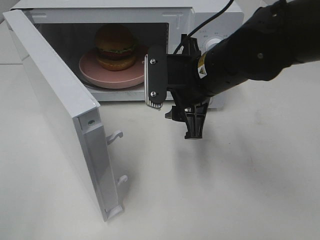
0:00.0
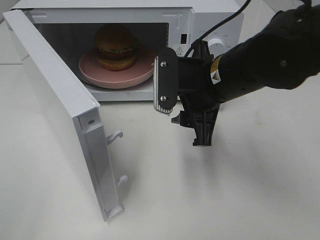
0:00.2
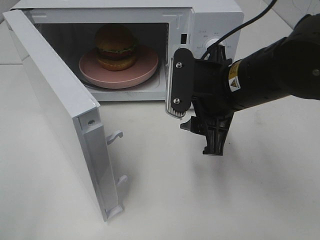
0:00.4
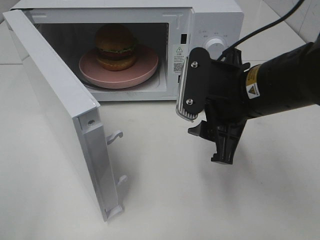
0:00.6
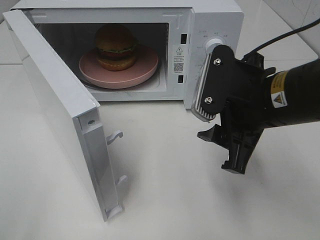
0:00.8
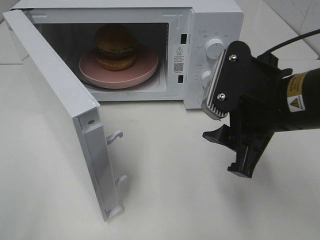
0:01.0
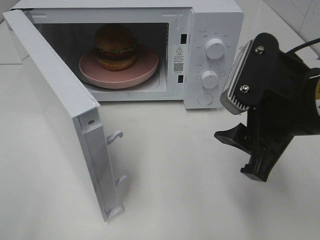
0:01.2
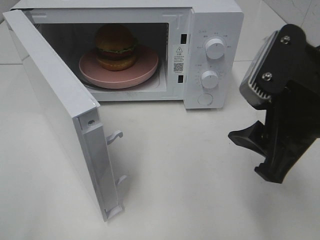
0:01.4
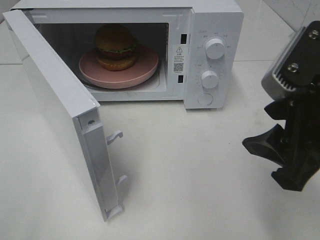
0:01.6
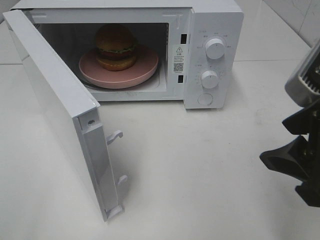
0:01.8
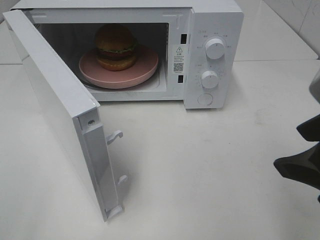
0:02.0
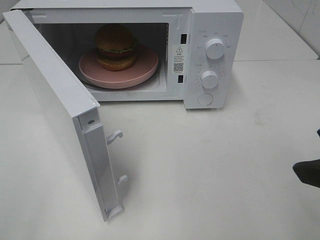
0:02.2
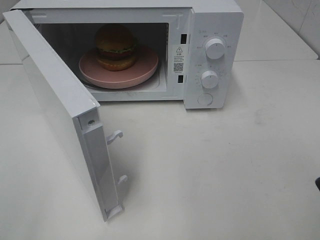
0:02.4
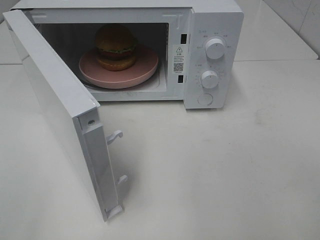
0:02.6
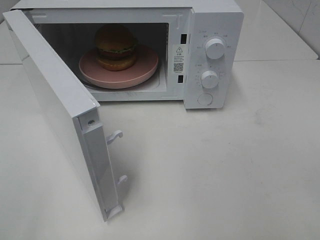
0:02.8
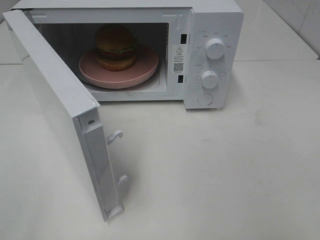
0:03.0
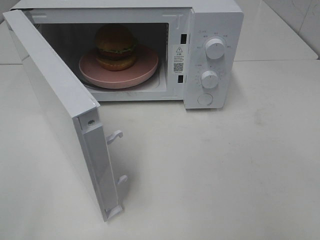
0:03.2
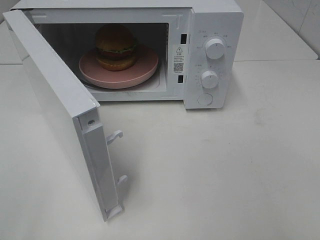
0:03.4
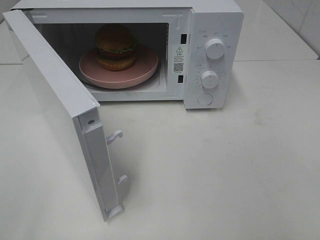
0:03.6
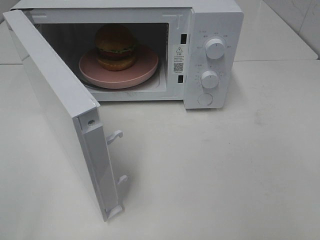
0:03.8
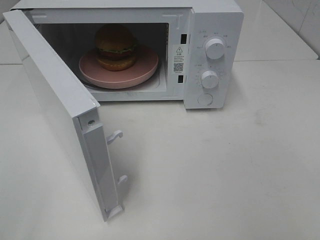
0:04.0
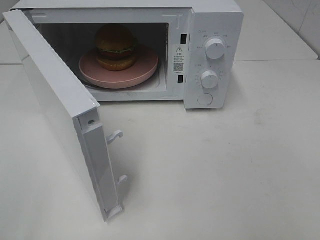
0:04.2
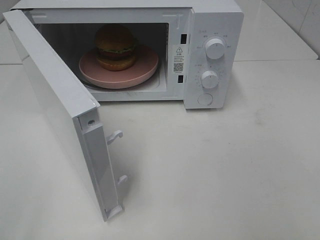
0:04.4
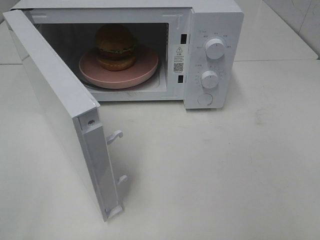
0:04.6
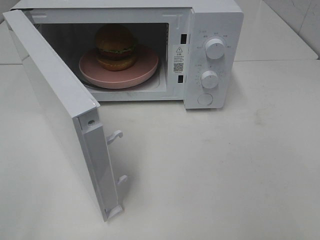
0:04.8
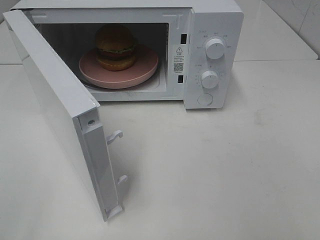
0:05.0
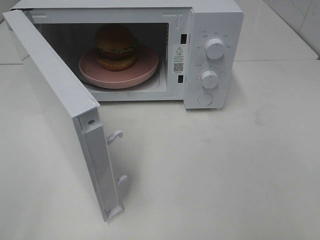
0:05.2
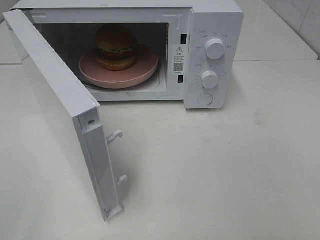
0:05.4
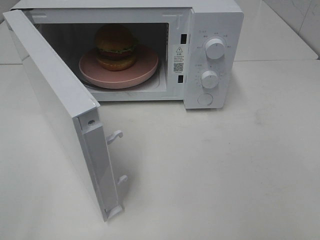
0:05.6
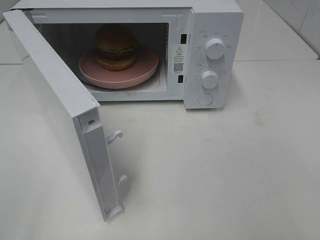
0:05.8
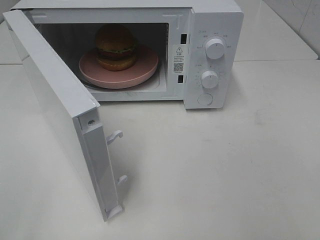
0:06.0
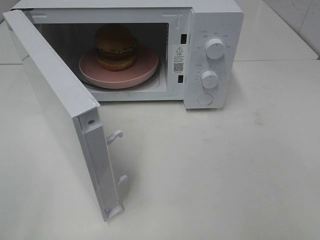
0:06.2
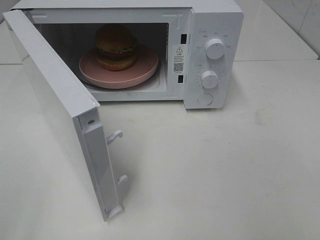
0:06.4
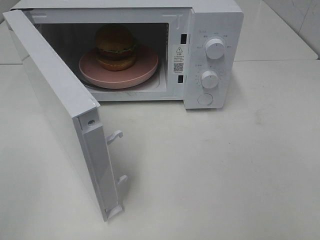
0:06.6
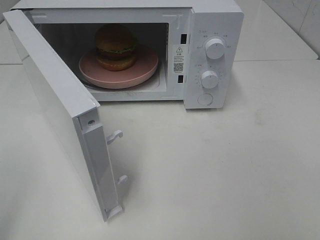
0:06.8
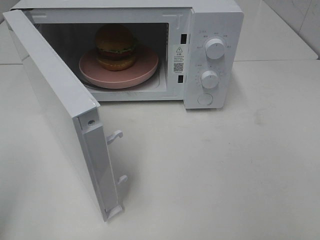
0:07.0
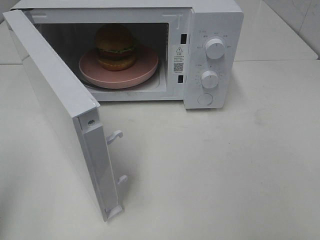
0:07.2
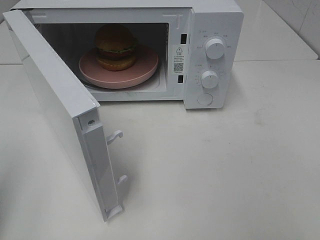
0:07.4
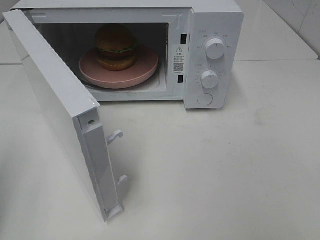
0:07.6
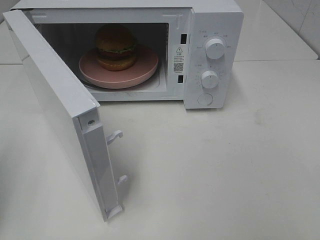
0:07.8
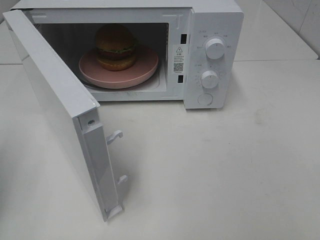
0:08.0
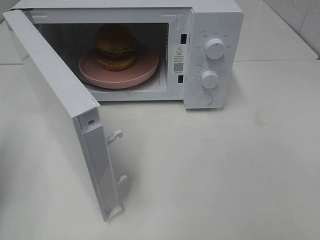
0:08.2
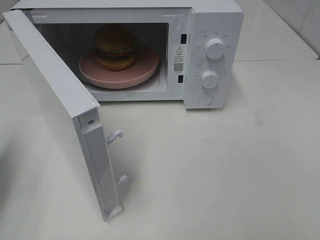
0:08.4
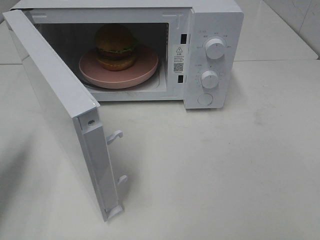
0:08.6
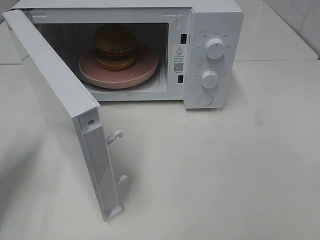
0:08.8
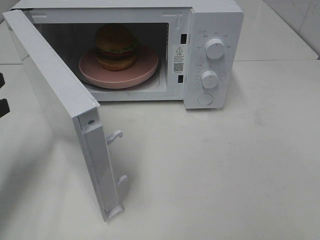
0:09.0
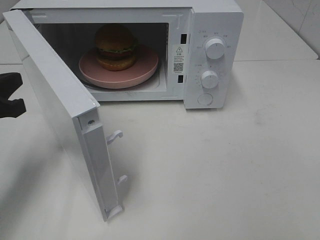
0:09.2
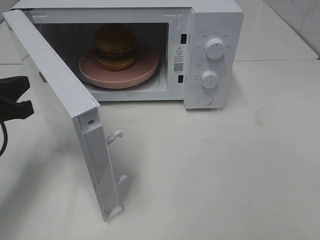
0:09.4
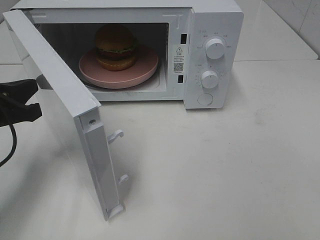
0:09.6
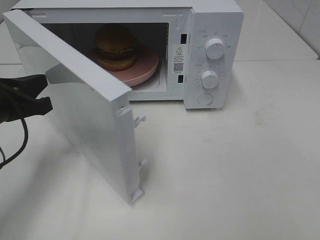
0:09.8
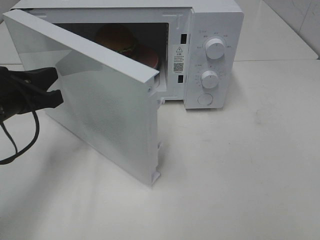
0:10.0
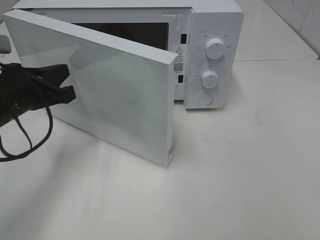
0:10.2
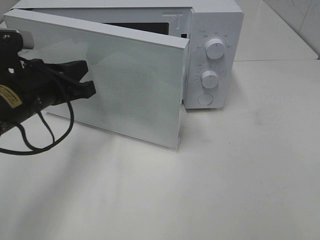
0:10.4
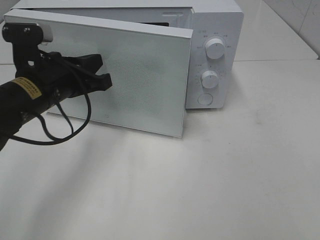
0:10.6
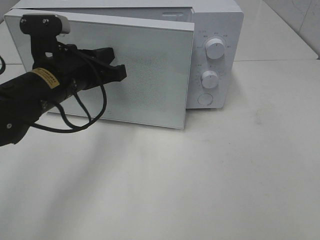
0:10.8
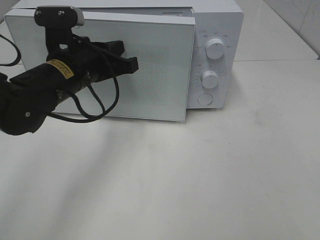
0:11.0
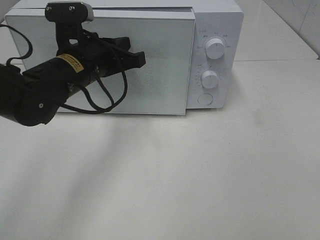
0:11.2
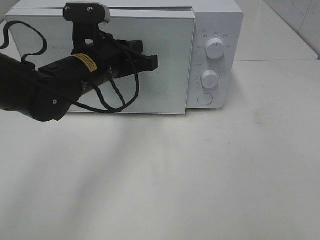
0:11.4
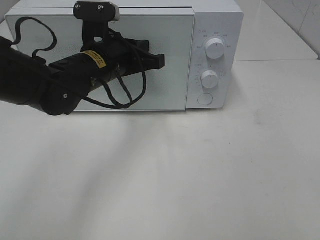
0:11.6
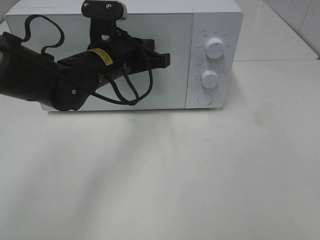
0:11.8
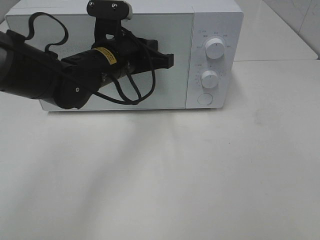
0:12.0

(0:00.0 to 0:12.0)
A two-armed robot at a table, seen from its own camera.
Task of the whole recording: Heat the burger.
0:00.0 - 0:01.6: The right gripper heads backward, to the right and upward, covering roughly 20 cm.
0:01.6 - 0:03.0: The right gripper shifts about 15 cm backward and to the right.
0:04.4 - 0:06.0: Both grippers stay put.
0:07.6 - 0:09.0: The left gripper moves forward and downward, roughly 10 cm.
0:09.0 - 0:10.4: The left gripper heads to the right, covering approximately 10 cm.
0:10.4 - 0:12.0: The left gripper shifts about 15 cm to the right and forward.

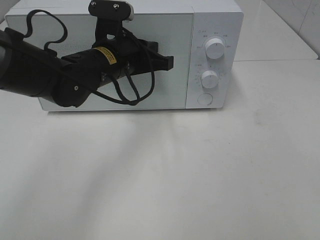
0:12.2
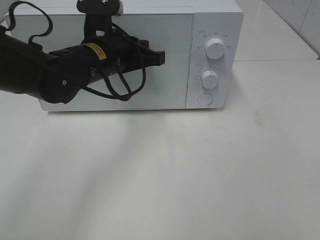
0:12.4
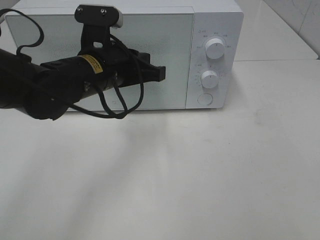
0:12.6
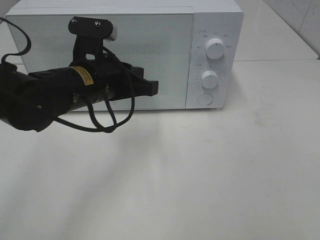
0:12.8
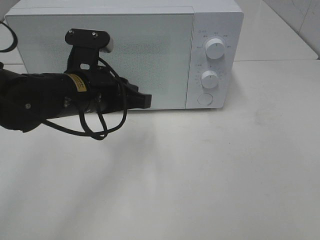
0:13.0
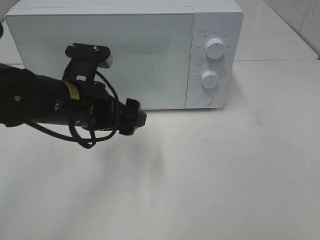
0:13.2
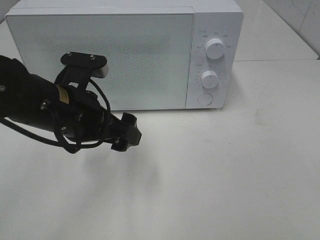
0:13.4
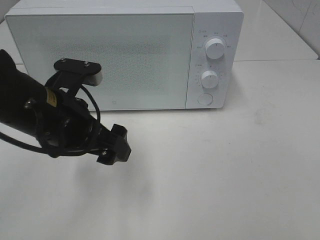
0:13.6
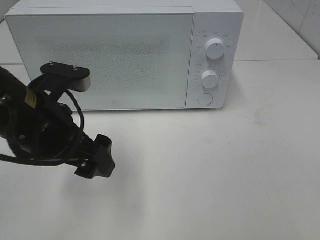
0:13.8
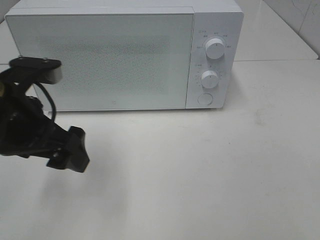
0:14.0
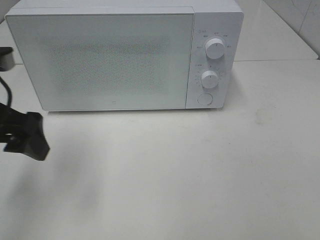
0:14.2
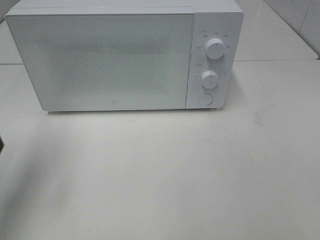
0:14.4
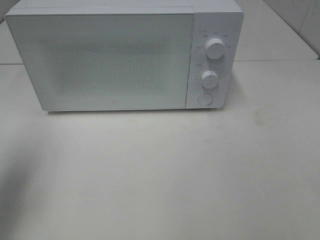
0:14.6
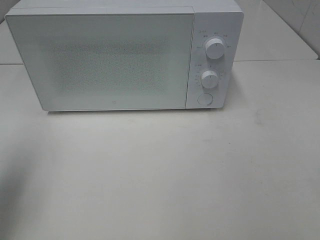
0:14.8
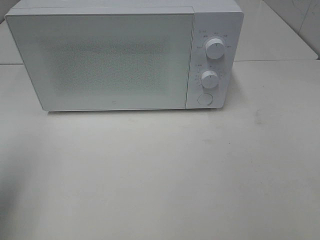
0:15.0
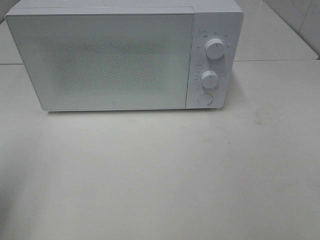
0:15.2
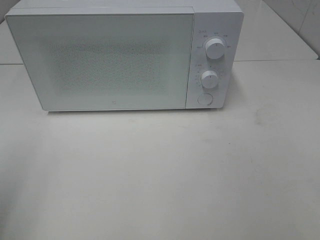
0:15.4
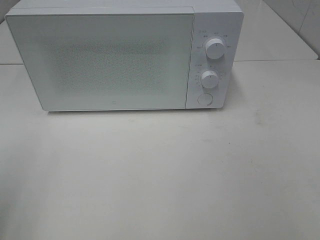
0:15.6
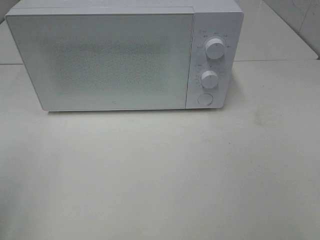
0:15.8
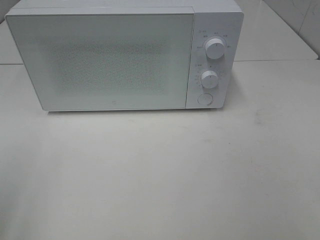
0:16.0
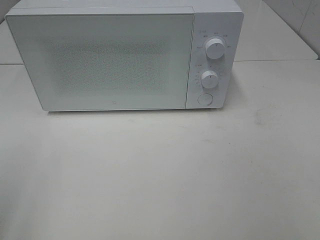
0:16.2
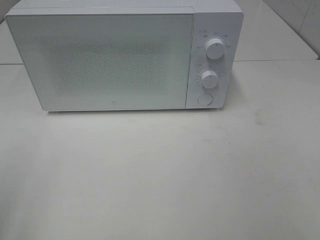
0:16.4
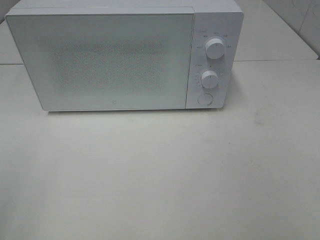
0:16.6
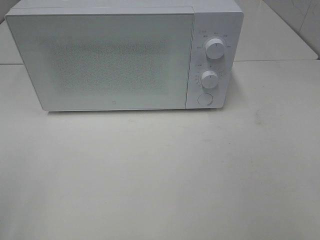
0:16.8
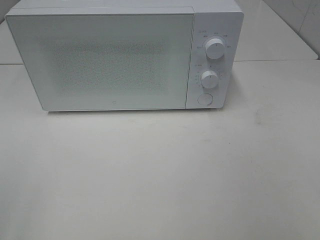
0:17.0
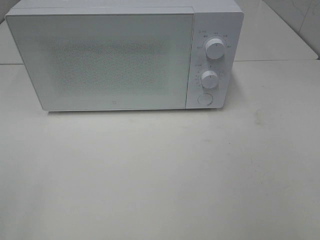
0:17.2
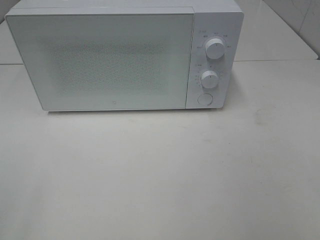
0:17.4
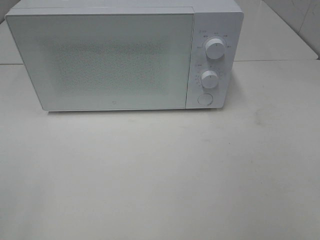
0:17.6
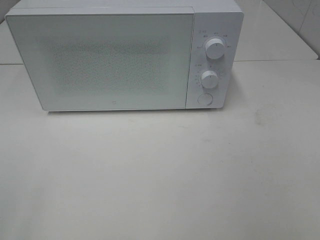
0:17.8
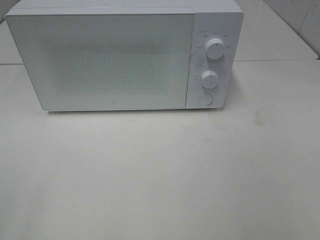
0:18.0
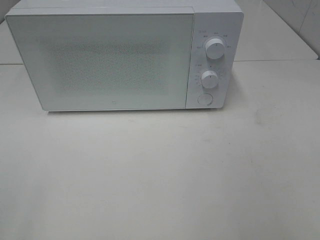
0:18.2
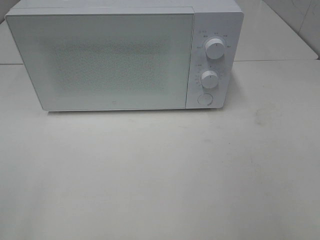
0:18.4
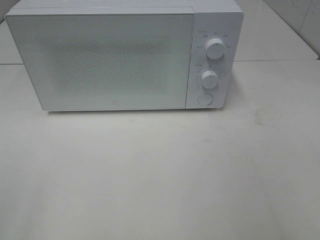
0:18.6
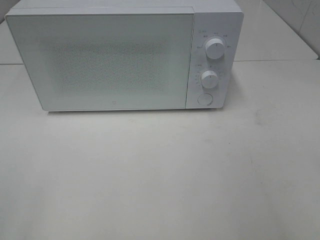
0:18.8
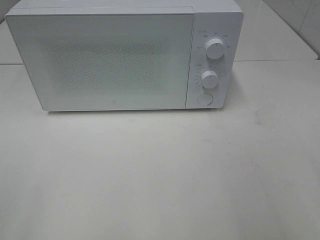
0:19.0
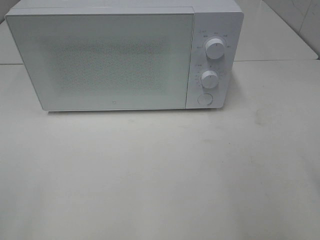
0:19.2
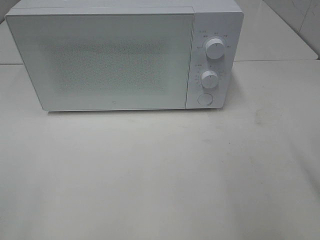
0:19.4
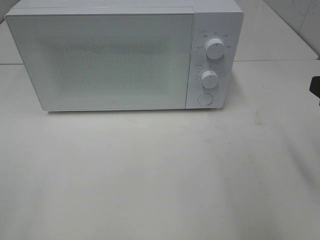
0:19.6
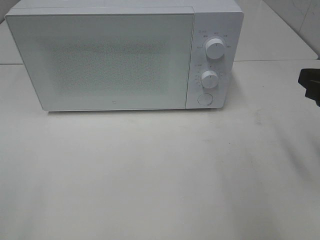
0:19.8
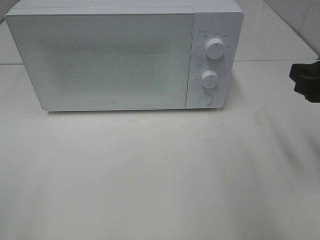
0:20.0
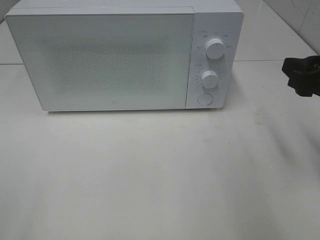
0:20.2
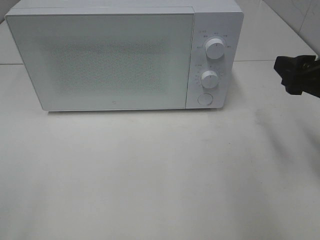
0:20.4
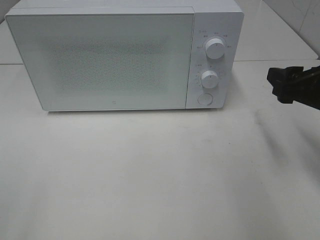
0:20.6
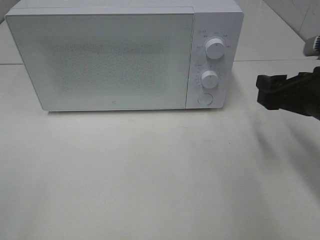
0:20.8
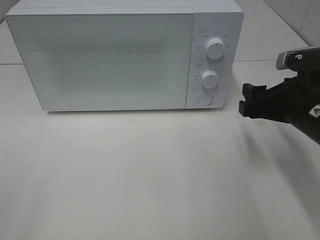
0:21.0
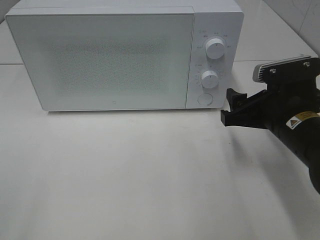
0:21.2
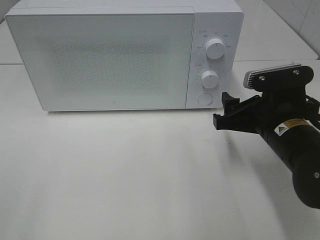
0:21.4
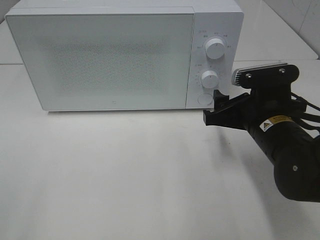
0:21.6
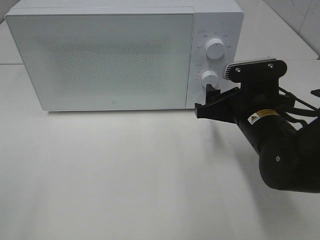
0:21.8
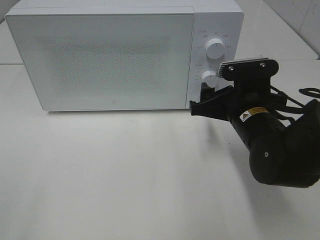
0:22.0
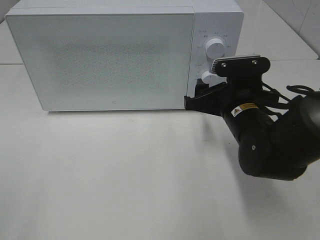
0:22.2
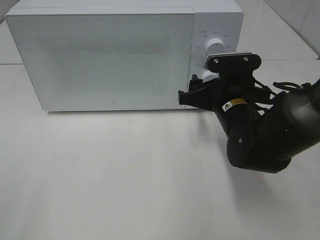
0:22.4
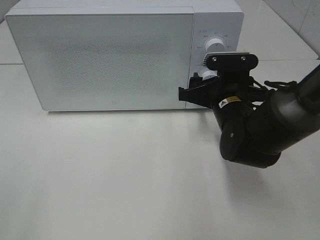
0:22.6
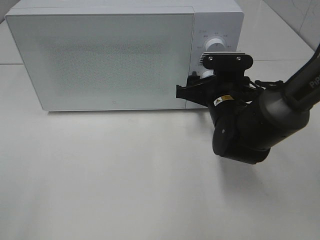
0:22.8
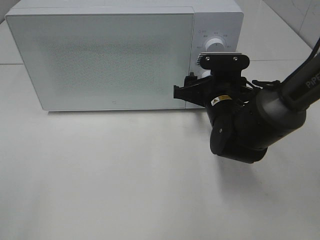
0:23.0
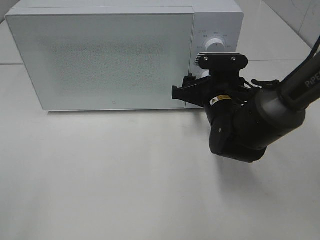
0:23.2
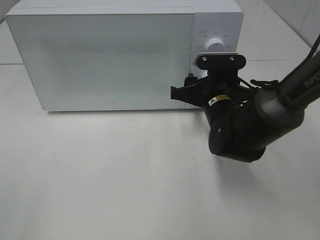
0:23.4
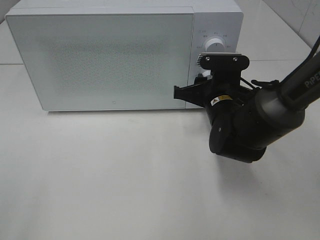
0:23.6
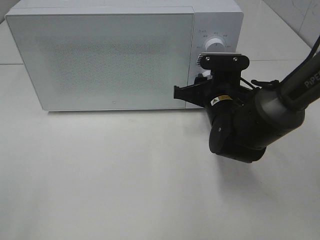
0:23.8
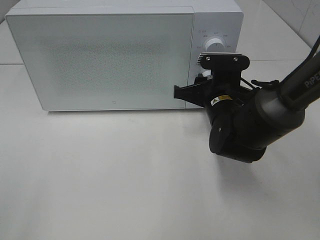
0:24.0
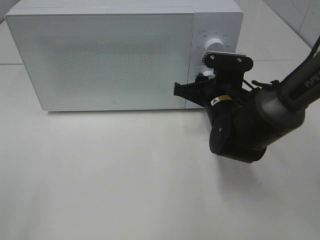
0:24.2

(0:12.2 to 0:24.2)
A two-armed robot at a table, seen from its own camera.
Task of the whole recording: Heat the burger.
0:12.2 - 0:13.8: The left gripper shifts about 15 cm backward and to the left, and opens.
0:13.8 - 0:15.2: The left gripper is displaced to the left and backward by roughly 20 cm.
0:18.2 - 0:19.8: The right gripper heads forward, covering roughly 15 cm.
0:19.8 - 0:21.2: The right gripper heads downward, to the left and forward, covering roughly 15 cm.
0:21.2 - 0:22.6: The right gripper goes approximately 10 cm forward and to the left.
0:22.6 - 0:24.2: The right gripper closes its fingers.
